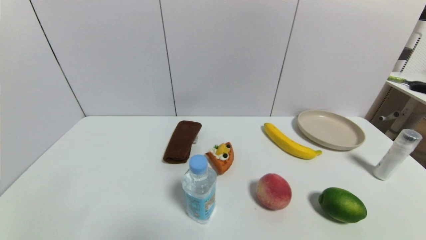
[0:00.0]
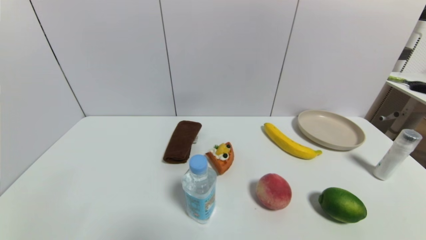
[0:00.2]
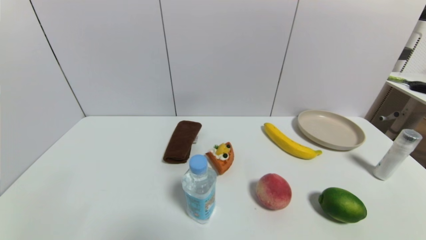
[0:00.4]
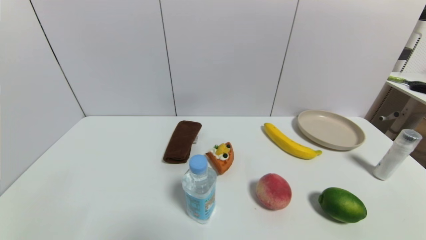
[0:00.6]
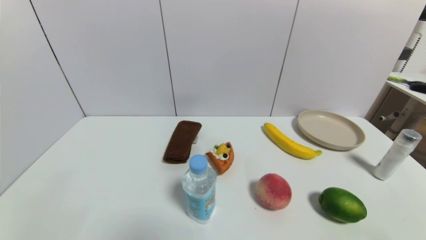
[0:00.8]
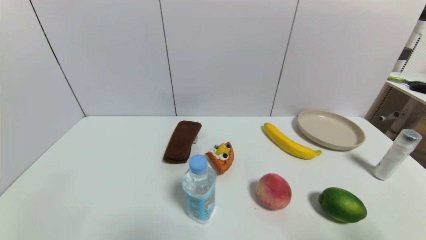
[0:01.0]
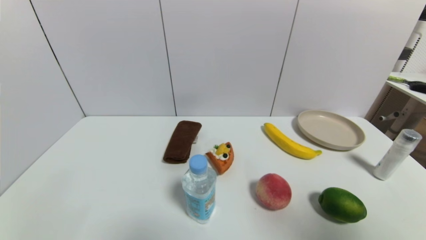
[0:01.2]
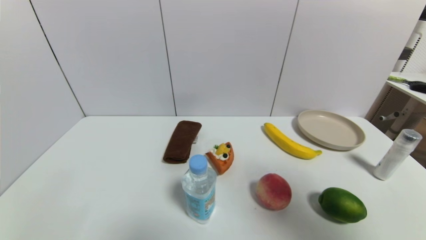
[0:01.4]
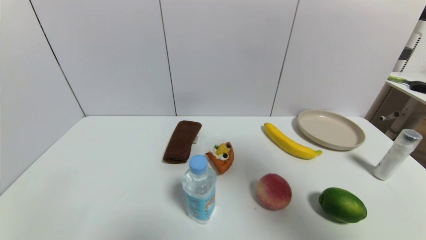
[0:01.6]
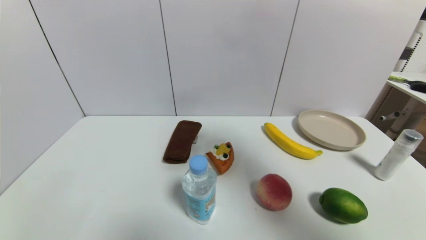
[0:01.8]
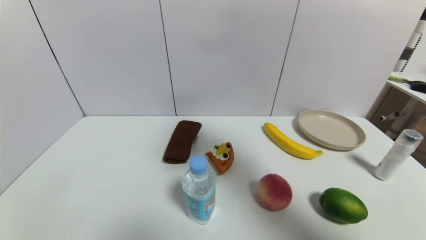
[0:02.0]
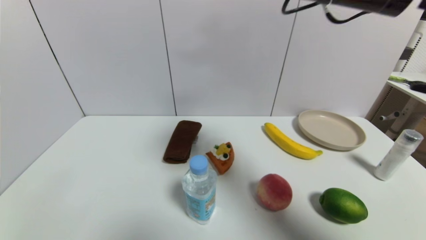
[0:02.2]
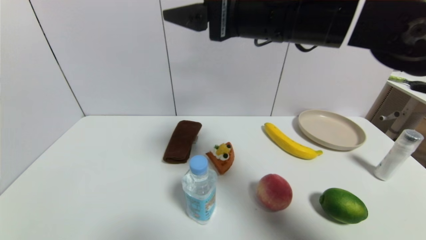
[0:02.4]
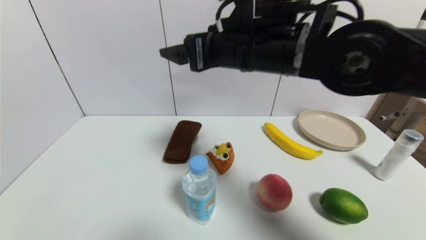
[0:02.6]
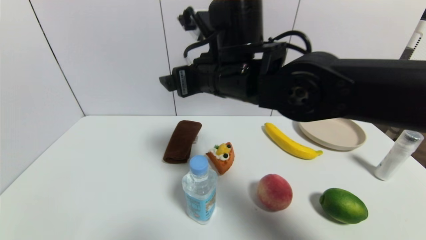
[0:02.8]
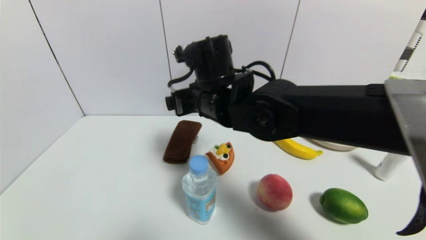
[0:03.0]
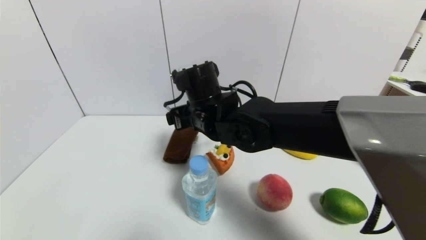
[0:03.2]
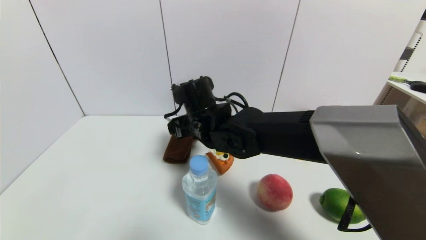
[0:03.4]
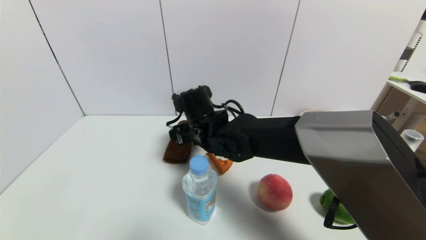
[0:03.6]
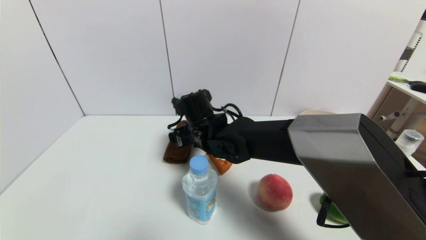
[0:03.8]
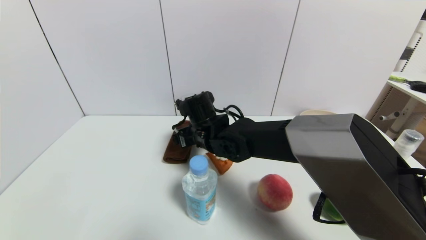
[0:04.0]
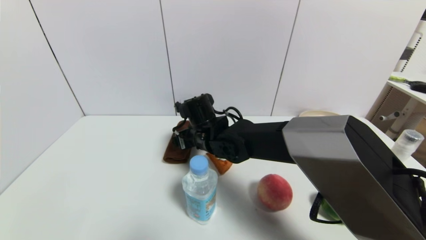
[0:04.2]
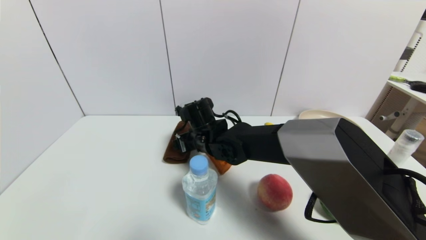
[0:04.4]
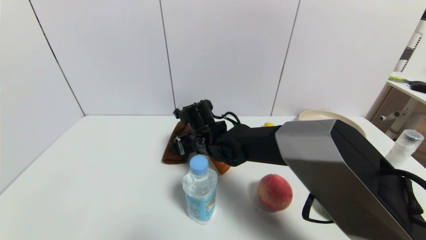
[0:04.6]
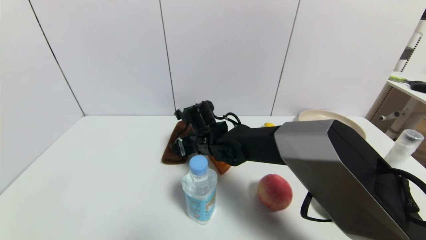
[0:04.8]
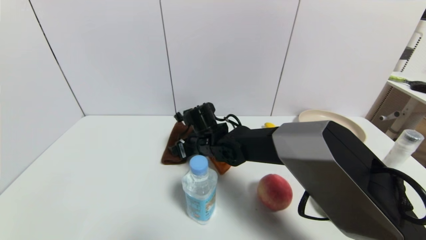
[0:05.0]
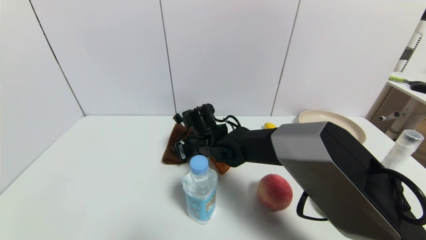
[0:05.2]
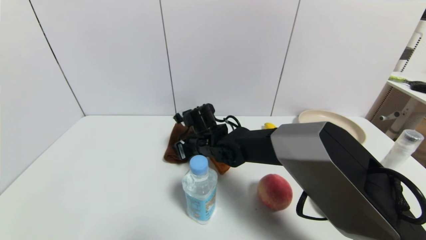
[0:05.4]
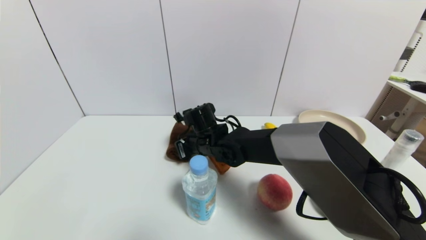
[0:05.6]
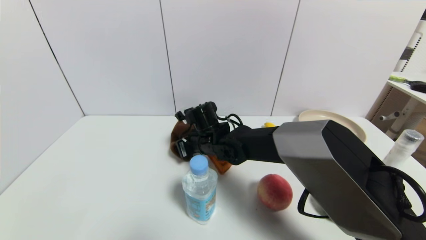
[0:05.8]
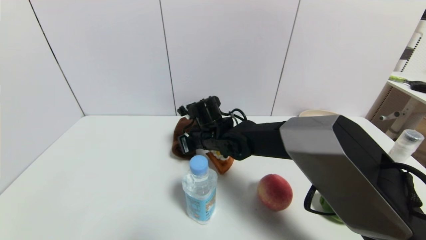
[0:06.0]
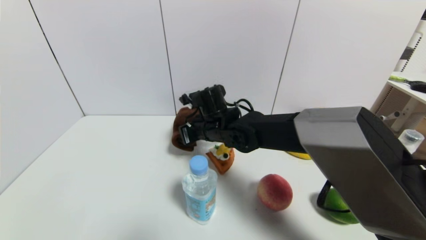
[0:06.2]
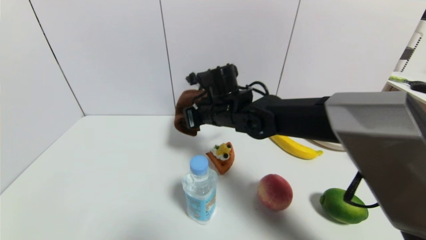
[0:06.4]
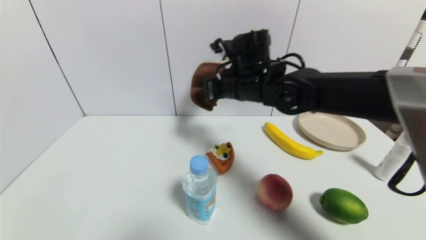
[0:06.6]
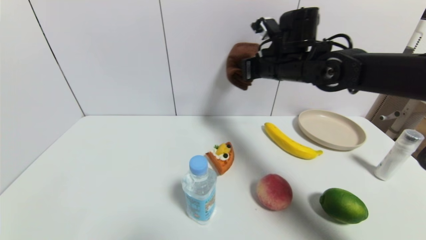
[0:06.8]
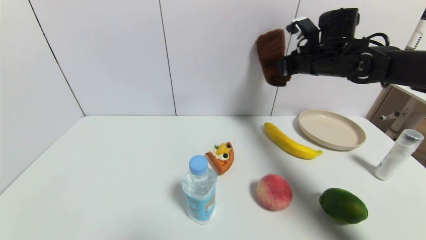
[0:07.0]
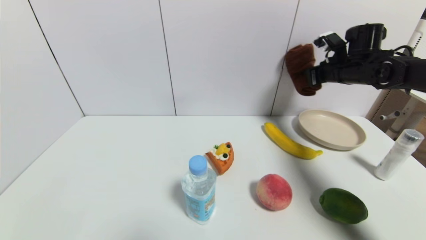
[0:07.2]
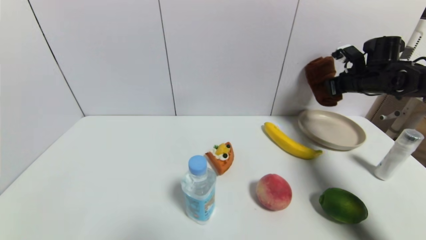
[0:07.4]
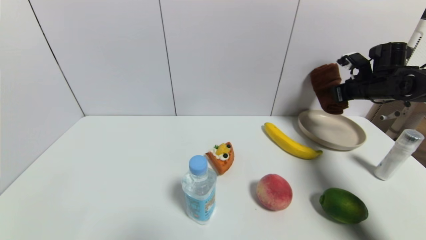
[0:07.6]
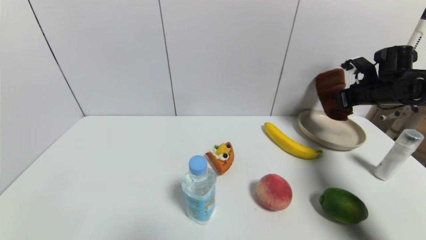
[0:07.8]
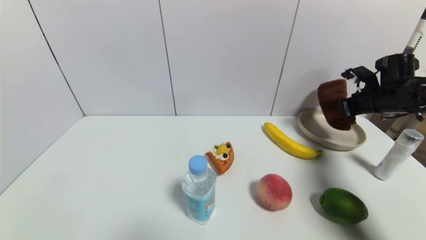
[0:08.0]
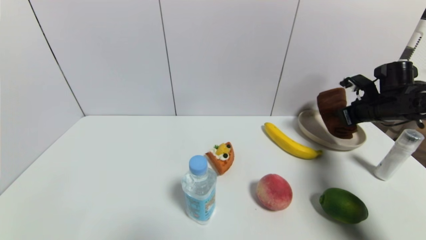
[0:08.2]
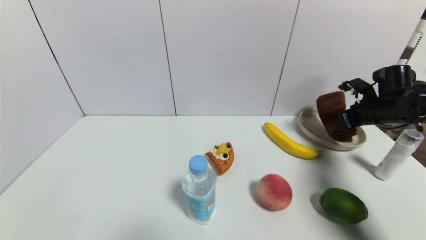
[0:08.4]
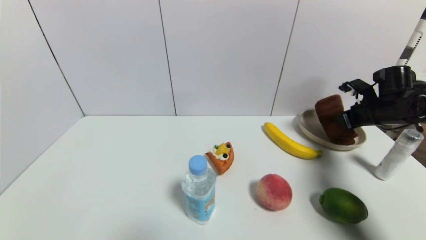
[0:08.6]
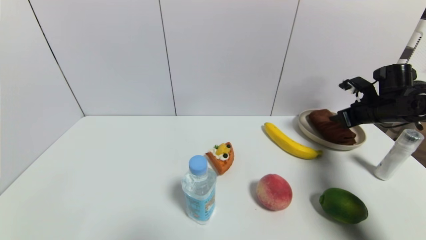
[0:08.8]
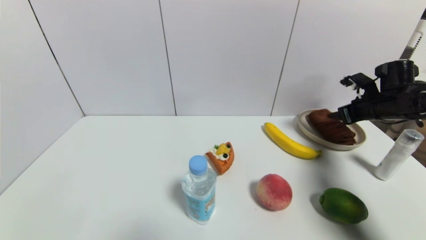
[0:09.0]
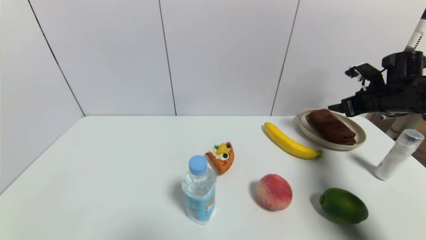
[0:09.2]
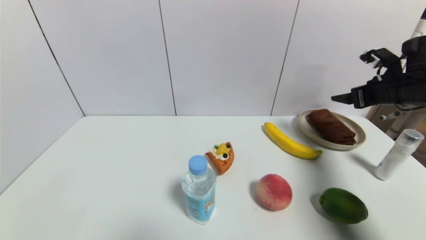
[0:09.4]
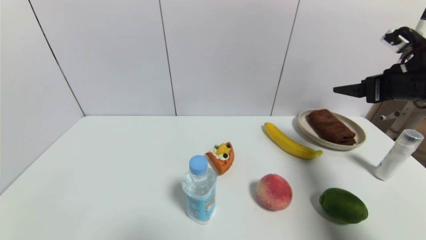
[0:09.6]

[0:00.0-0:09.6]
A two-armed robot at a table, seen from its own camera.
Task of the whole recording: use a gripper to pick the target object and place on the brown plate.
Step, 0:00.0 to 0:05.6: Grasp the brown towel with the right gripper.
Step, 0:05.8 to 0:09.0: Place the brown towel on the brown plate with the right gripper.
0:00.0 to 0:01.6: The right gripper moves upward and forward, roughly 40 cm.
0:01.6 to 0:03.2: The right gripper goes roughly 40 cm to the left, downward and forward.
0:03.2 to 0:04.8: The right gripper goes about 10 cm downward.
0:04.8 to 0:06.4: The right gripper heads upward and to the right, covering approximately 10 cm, and closes up.
0:06.4 to 0:08.0: The right gripper goes approximately 35 cm to the right.
0:08.0 to 0:09.6: The right gripper shifts roughly 15 cm backward and upward, and opens up.

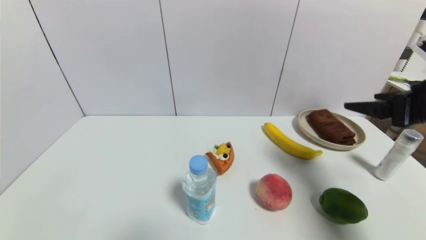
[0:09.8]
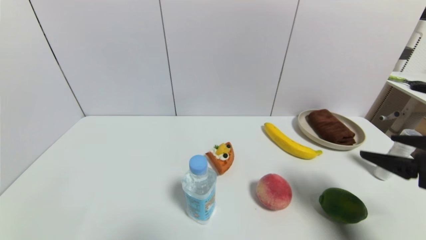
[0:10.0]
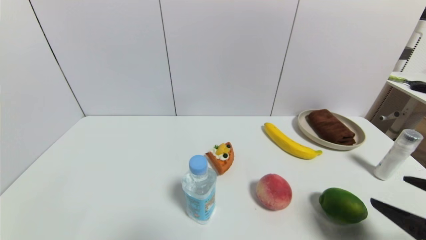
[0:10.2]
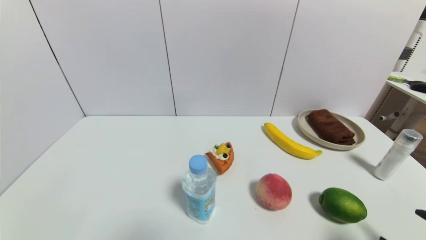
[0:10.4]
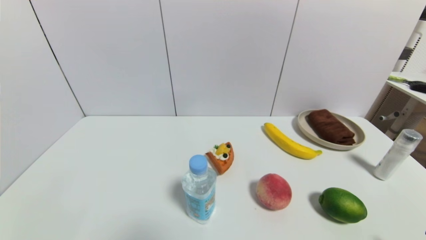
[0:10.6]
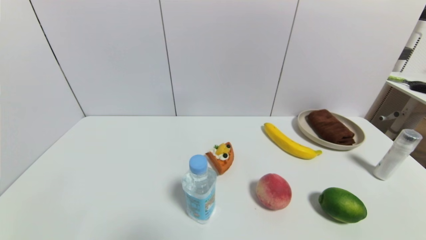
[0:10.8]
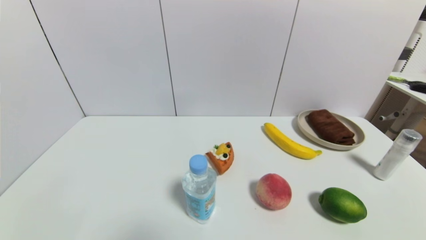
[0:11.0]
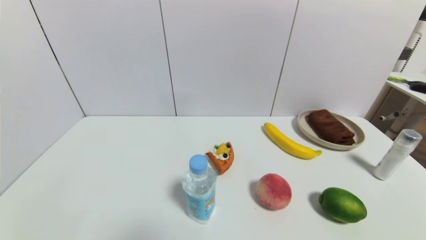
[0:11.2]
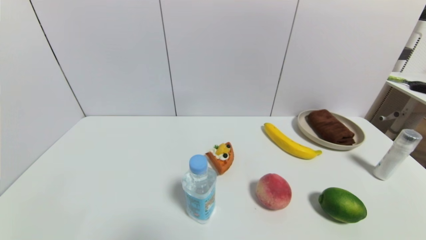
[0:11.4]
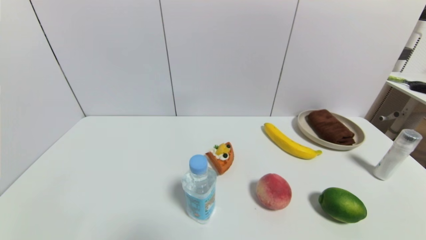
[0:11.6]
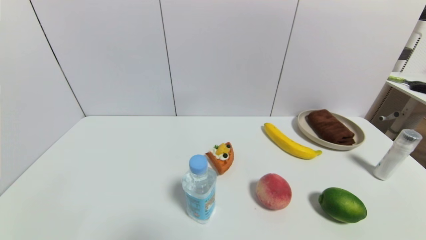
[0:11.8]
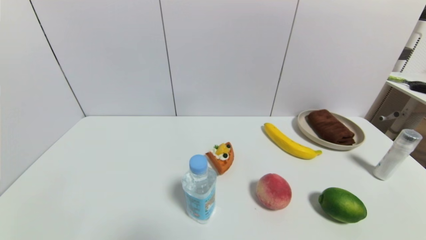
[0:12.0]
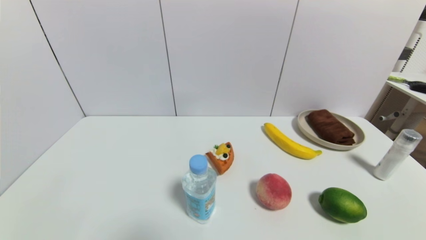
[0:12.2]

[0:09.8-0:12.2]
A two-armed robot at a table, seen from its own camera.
Task of the whole recording: use a gripper to pick the target object and place on the brown plate.
0:09.8 to 0:11.0: The right gripper travels backward and downward by approximately 30 cm.
